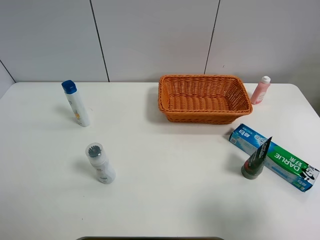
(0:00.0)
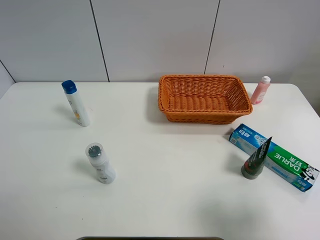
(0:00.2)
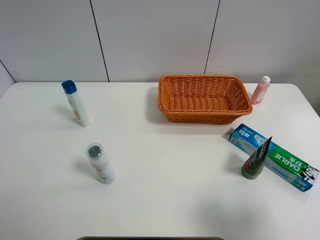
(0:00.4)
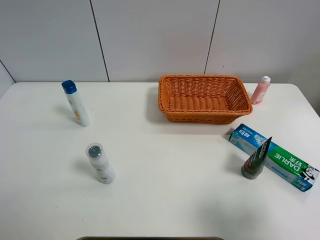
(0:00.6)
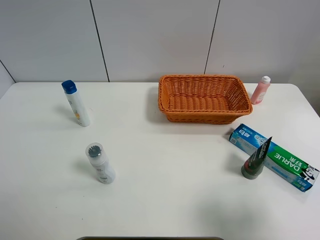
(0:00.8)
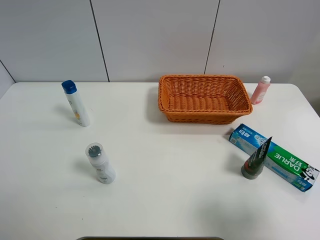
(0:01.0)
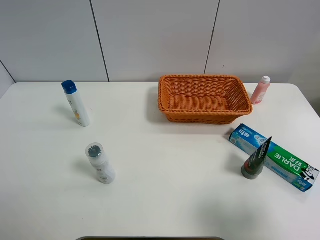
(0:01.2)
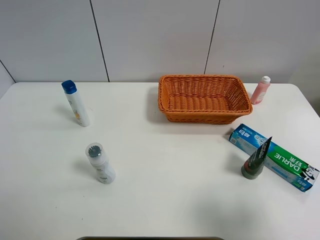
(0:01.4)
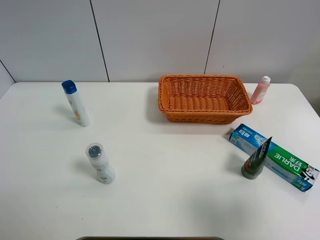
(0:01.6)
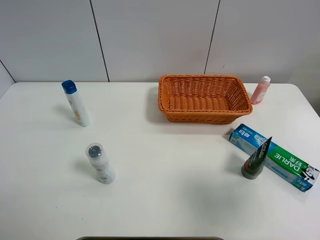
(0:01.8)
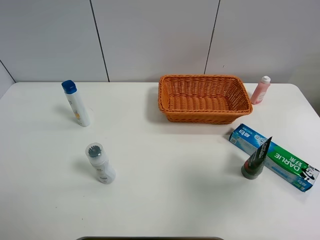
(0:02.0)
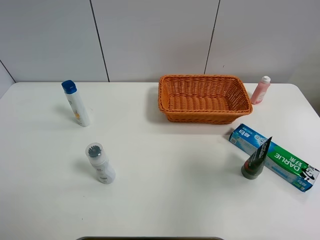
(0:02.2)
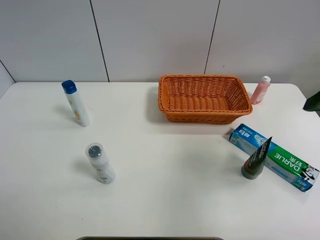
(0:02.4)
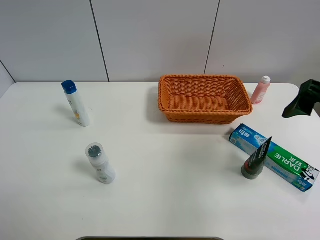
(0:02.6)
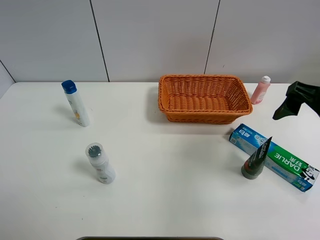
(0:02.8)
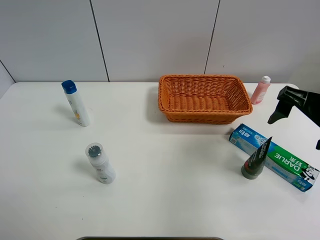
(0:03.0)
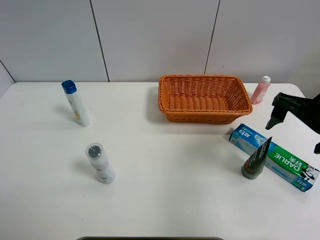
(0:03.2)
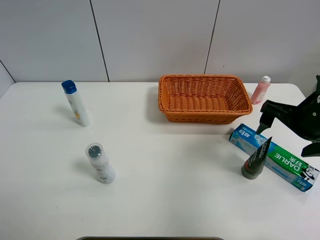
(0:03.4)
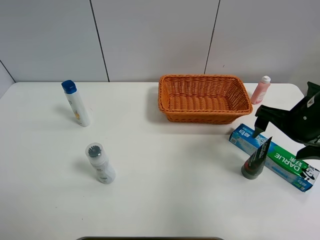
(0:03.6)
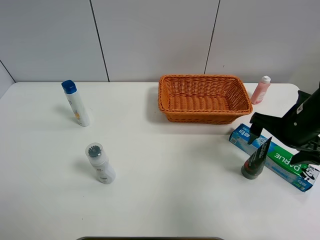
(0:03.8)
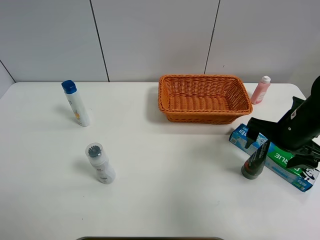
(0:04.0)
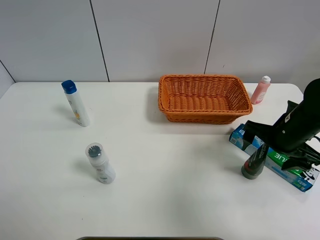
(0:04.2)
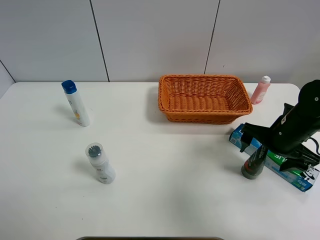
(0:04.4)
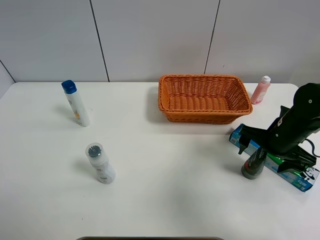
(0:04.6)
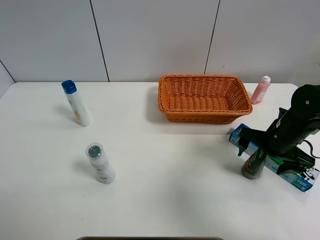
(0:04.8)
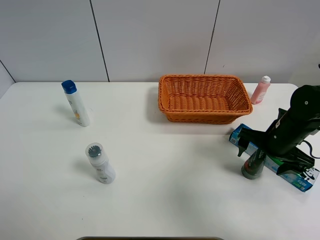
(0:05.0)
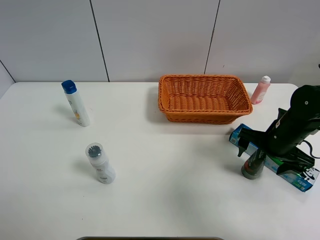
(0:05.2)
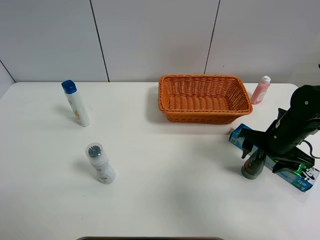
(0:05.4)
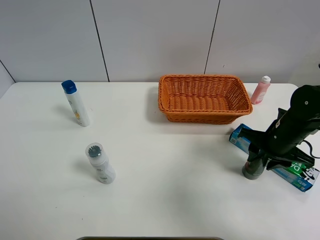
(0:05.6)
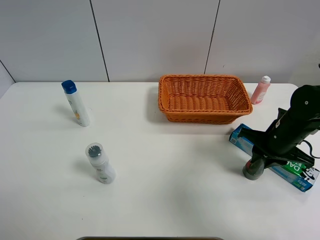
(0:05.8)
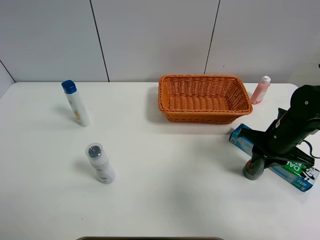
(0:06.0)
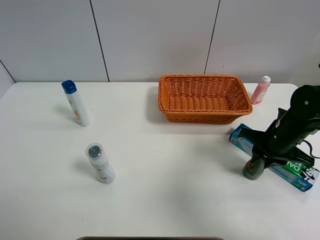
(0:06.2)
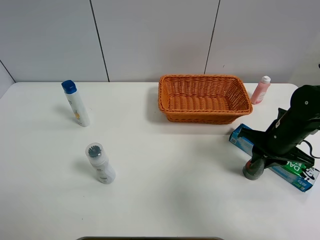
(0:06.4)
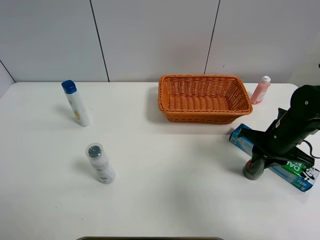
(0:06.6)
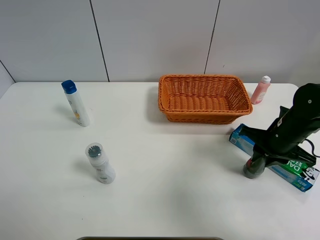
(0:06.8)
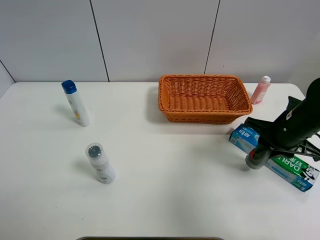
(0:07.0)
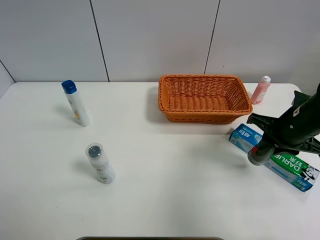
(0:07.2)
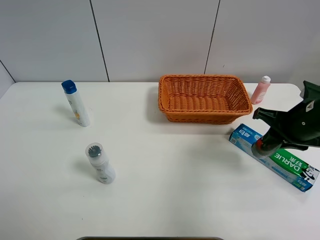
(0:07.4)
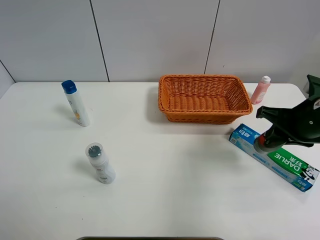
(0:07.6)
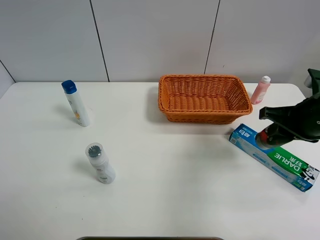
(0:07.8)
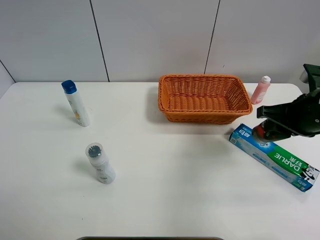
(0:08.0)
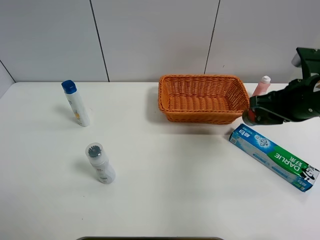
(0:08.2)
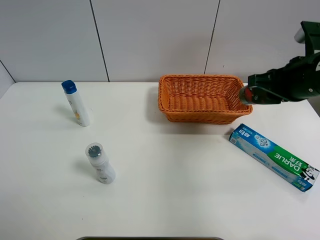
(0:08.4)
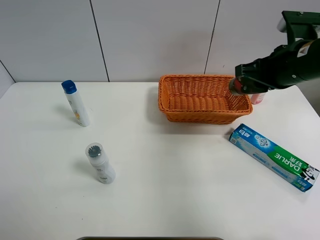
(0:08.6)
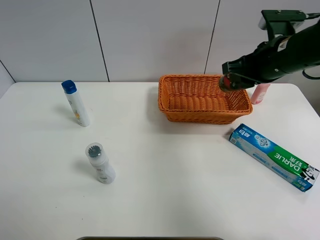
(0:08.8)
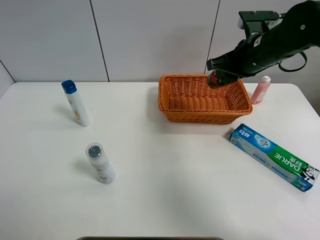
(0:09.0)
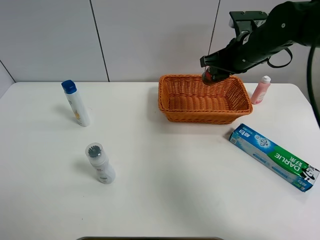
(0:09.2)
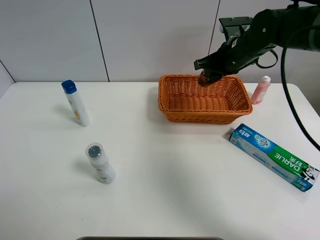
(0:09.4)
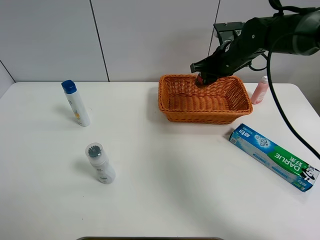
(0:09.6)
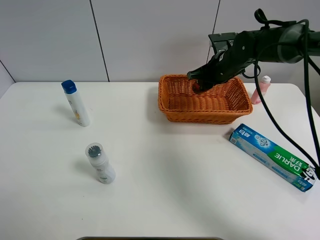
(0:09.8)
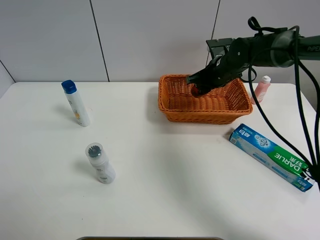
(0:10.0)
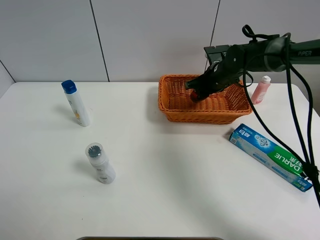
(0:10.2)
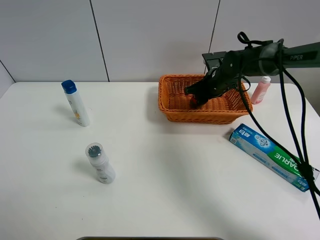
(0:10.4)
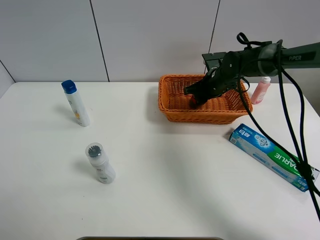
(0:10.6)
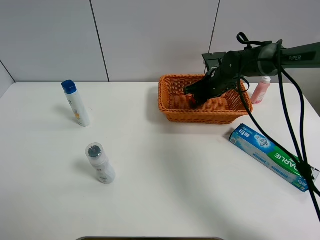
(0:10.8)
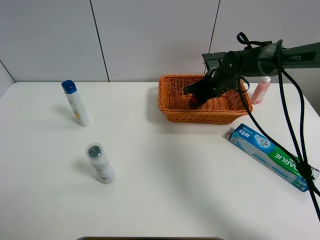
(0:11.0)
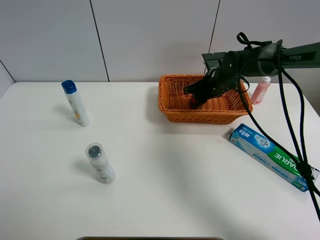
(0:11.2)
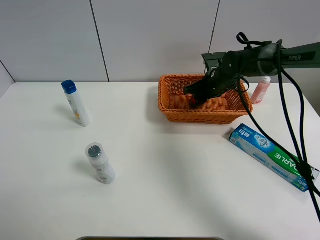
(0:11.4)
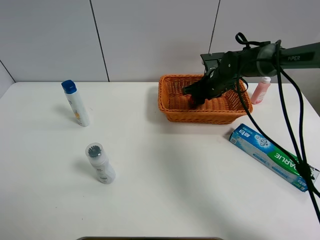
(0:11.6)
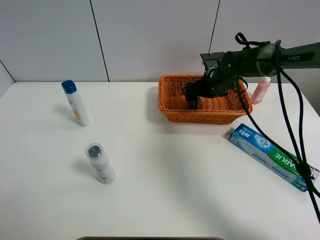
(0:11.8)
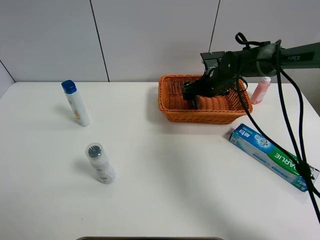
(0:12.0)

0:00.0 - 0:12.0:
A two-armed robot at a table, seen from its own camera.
Task of the whole recording: Place the object closest to the toothpaste in the basket.
Step, 0:00.0 - 0:05.8: Grasp the soft facial cleanser with right gripper.
0:01.6 - 0:03.0: The right gripper shifts approximately 20 cm forward.
0:03.0 - 0:04.4: The right gripper moves downward, approximately 10 cm.
0:04.4 - 0:06.0: The right gripper closes up.
0:06.0 - 0:07.6: The right gripper travels upward by some 10 cm.
0:07.6 - 0:09.0: The right gripper travels forward and to the left by some 15 cm.
0:09.0 - 0:10.4: The right gripper travels downward and forward by about 15 cm.
0:10.4 - 0:12.0: The right gripper opens.

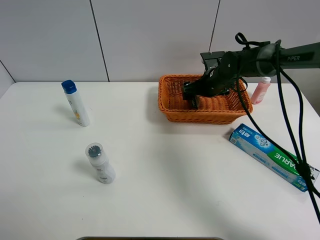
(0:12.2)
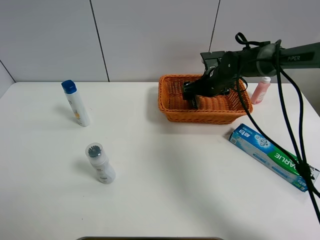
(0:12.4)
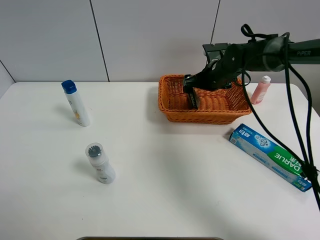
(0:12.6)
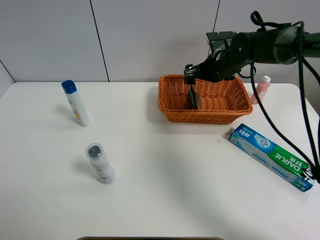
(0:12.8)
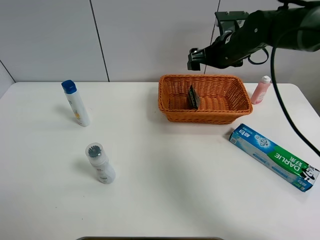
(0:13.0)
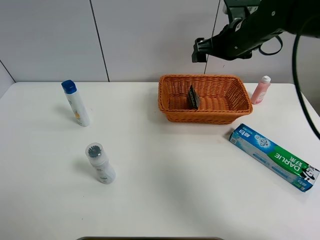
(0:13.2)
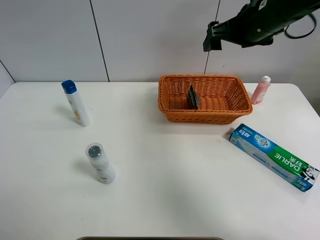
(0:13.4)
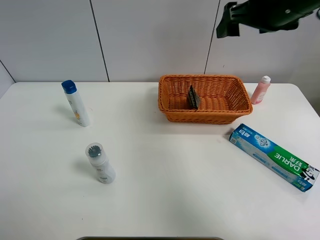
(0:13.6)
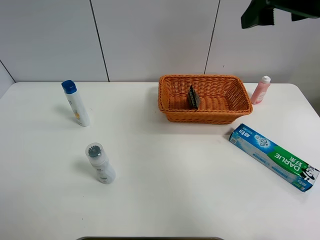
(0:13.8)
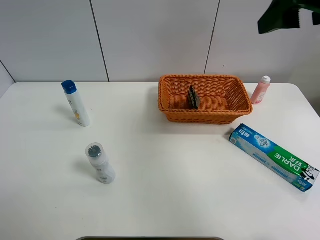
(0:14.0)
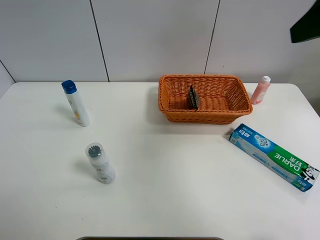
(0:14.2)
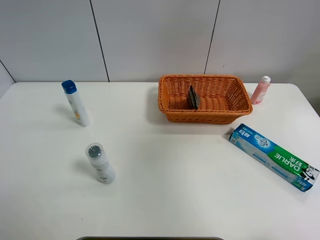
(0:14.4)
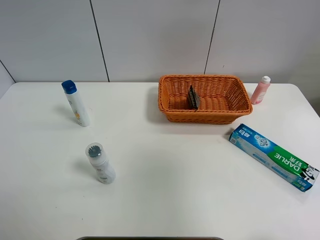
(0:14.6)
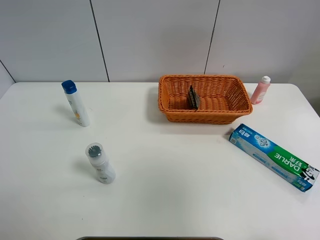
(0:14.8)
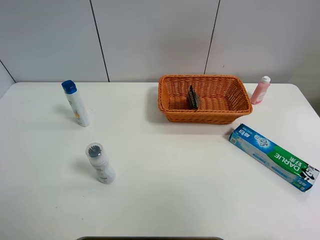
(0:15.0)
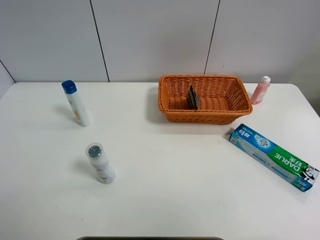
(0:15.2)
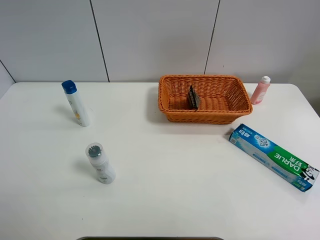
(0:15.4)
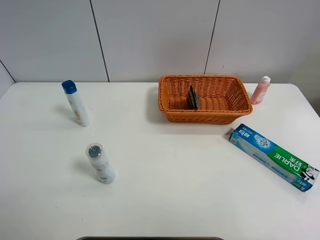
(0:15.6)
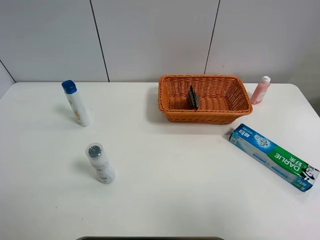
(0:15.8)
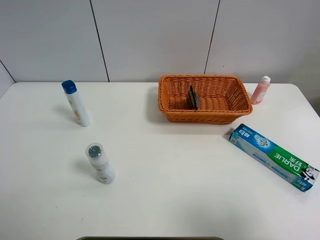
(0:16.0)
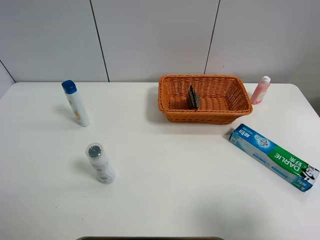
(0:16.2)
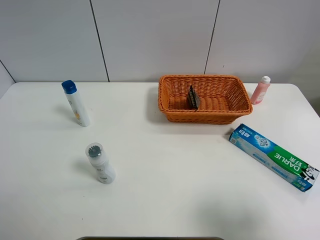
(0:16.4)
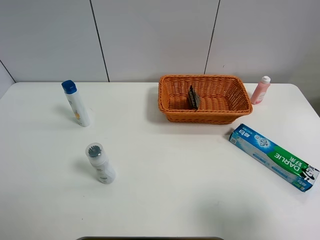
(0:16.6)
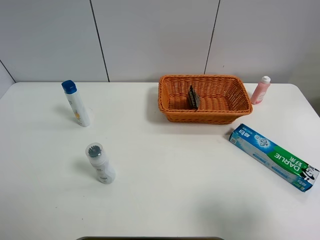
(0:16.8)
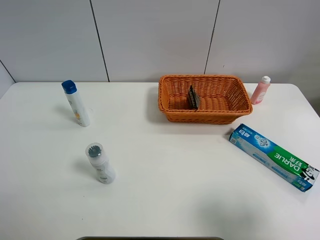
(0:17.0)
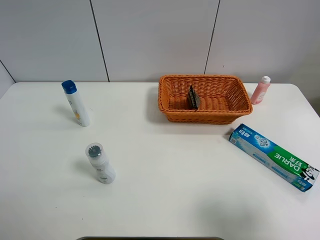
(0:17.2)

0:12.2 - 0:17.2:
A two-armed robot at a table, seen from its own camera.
Task of the whole recording: Place the object closest to the toothpaste in the basket.
0:12.2 - 0:13.8: The right gripper moves upward and backward, about 35 cm.
0:13.8 - 0:15.6: The right gripper heads backward, covering about 35 cm.
0:15.6 - 0:17.2: The right gripper is displaced downward and forward by about 20 cm.
